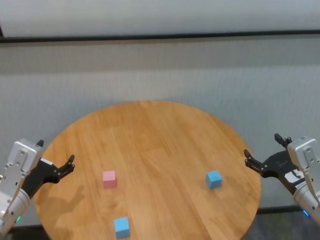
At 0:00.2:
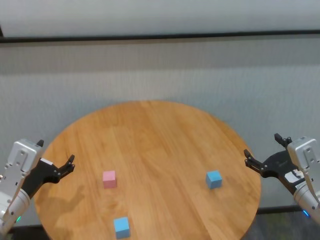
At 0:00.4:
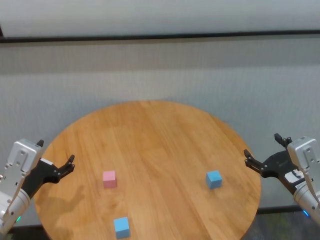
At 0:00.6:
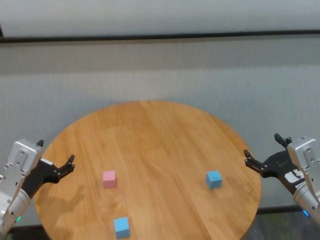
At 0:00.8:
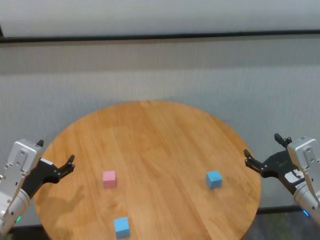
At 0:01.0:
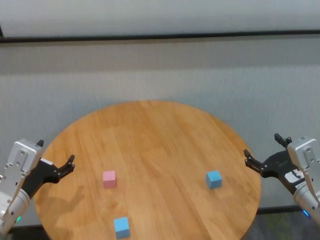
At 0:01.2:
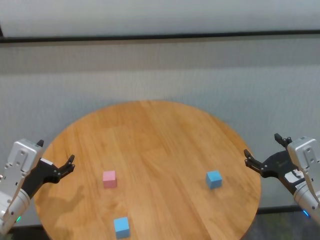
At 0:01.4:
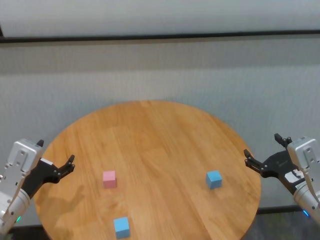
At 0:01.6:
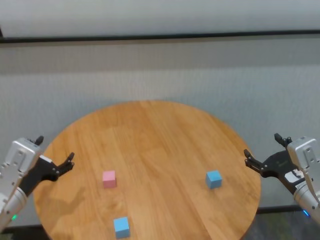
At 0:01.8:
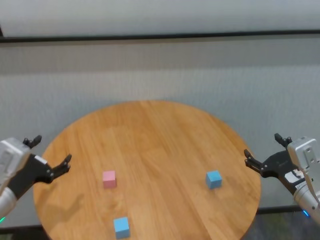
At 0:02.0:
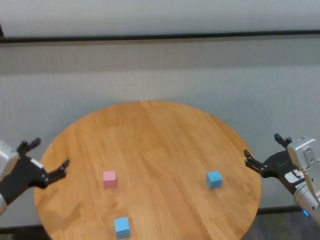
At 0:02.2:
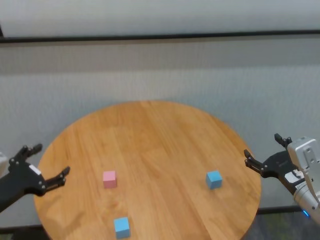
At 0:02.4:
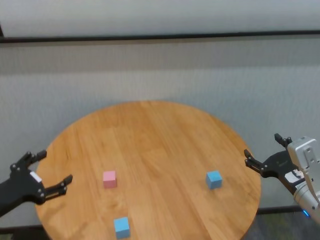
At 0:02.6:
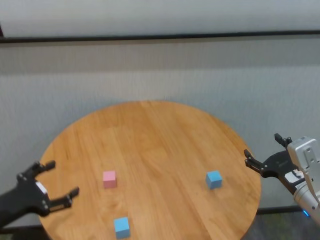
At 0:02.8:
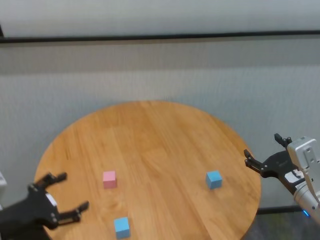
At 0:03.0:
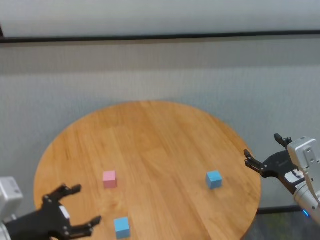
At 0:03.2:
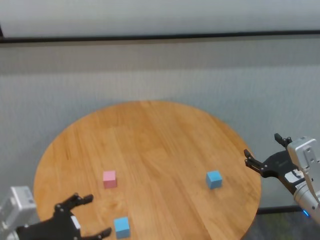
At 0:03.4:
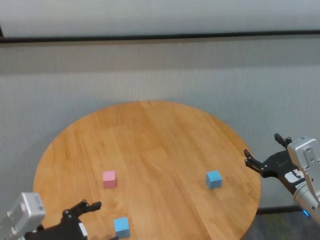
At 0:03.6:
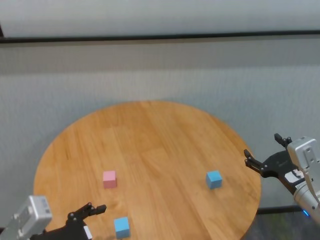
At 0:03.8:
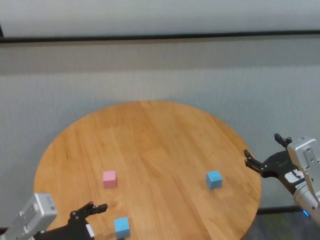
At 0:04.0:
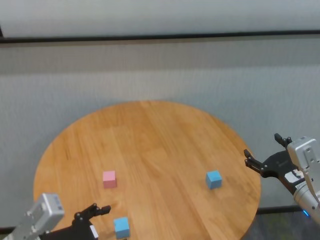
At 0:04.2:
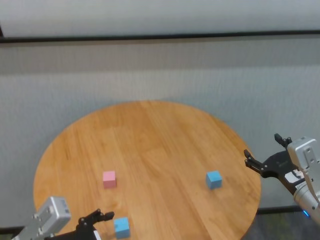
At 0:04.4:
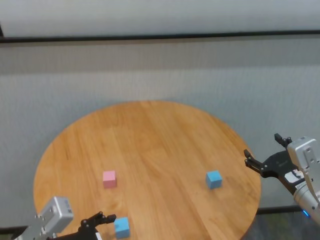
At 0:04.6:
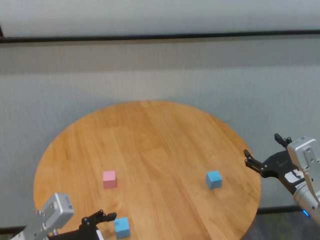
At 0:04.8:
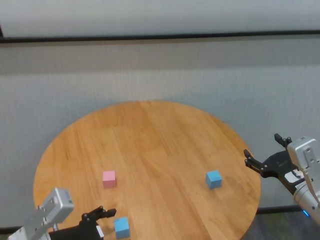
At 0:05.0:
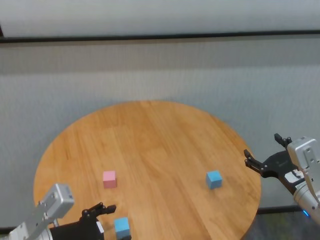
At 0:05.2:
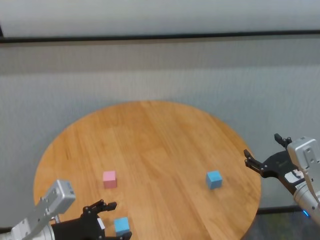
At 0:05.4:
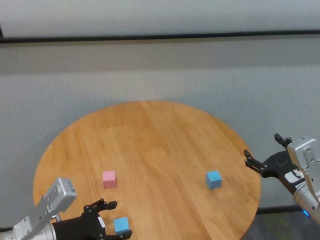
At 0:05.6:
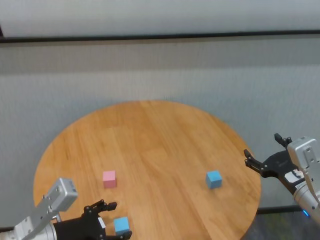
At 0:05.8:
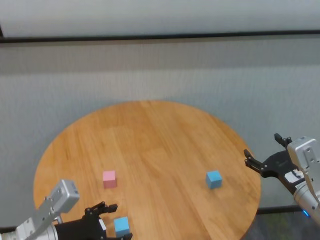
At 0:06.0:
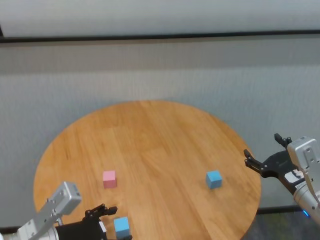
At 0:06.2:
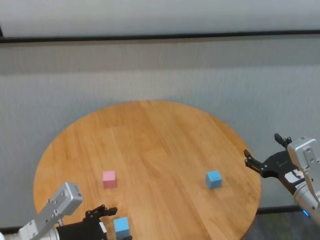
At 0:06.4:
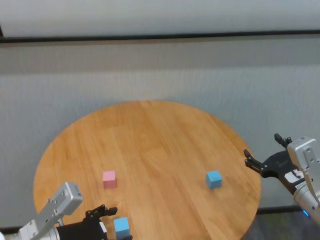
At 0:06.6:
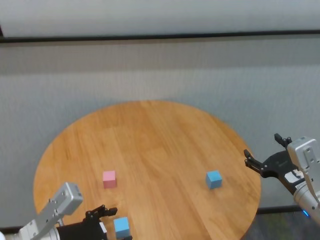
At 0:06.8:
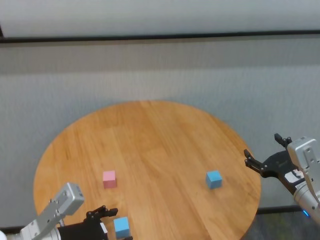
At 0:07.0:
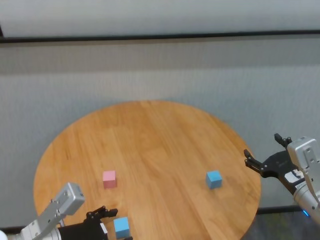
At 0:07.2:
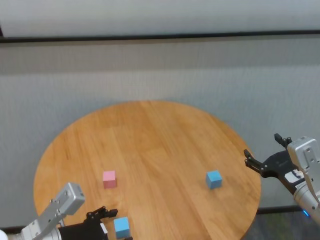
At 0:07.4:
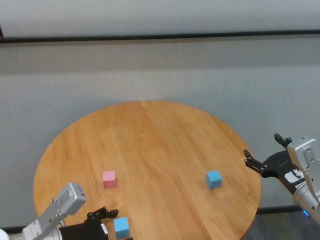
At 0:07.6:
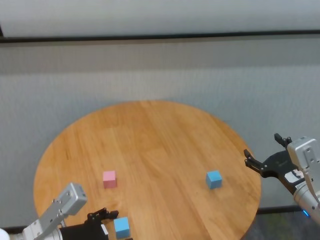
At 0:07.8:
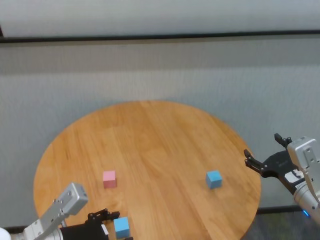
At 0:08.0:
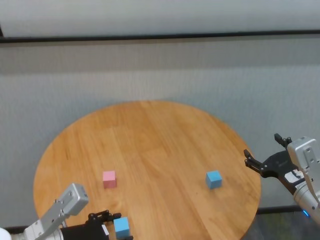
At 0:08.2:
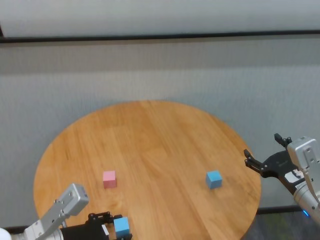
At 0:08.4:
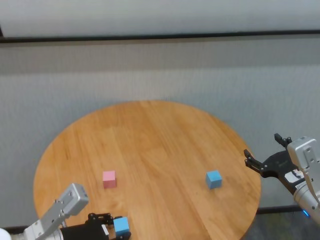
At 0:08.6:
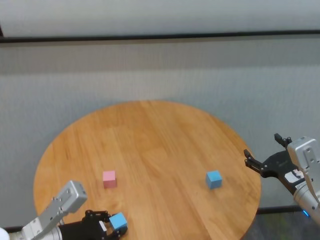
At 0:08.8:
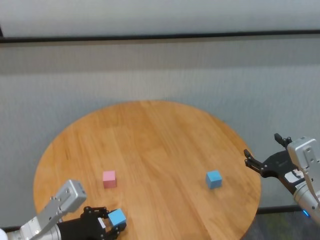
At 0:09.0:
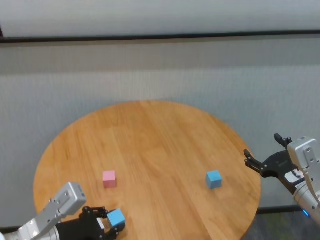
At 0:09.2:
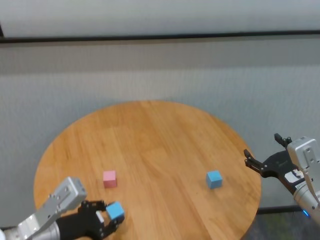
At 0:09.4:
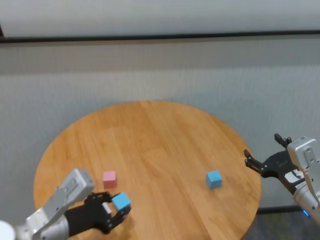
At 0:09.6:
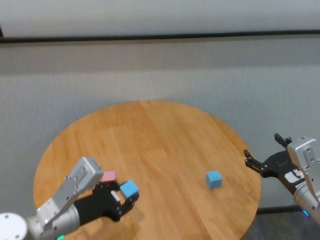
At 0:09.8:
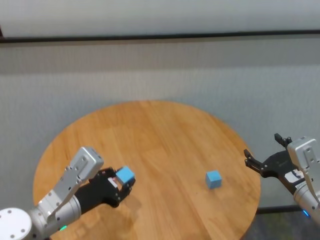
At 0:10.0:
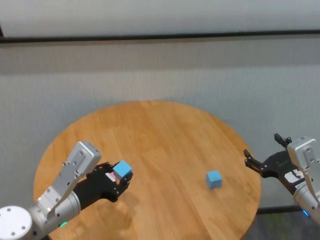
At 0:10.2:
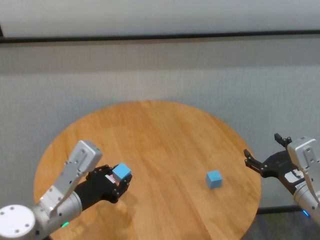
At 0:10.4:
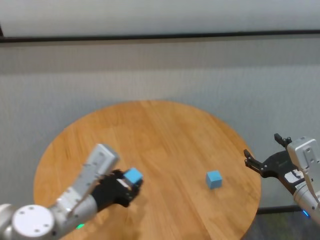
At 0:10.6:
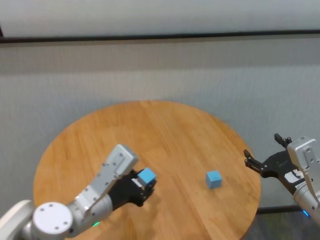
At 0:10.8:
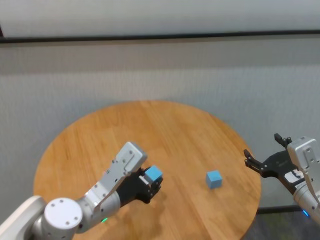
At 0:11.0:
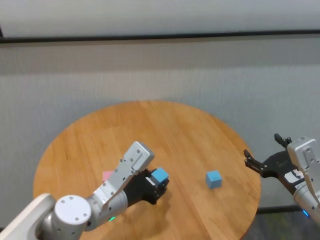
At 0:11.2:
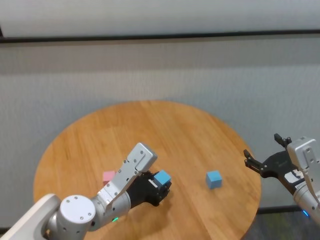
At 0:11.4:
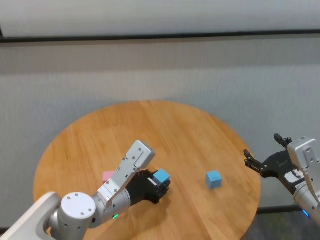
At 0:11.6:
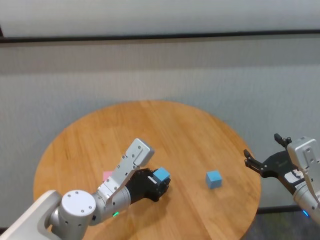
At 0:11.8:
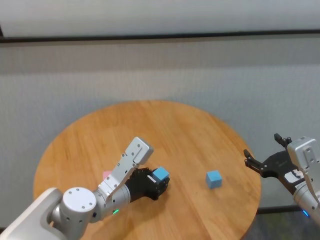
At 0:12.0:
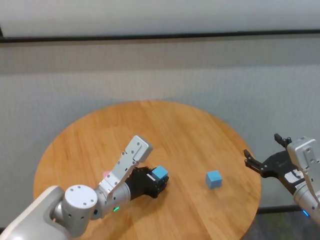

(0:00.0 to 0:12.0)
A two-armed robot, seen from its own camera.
Task of the whole recording: stack building blocks on the table.
Step, 0:00.0 - 0:08.4: Grasp the blue building block with left gripper.

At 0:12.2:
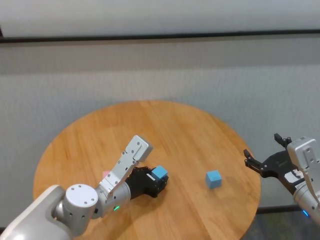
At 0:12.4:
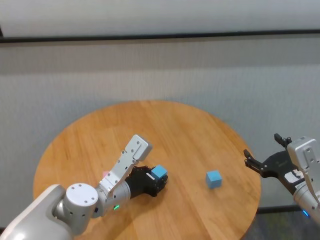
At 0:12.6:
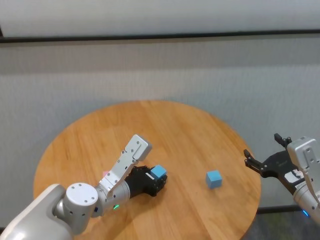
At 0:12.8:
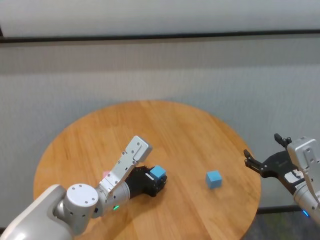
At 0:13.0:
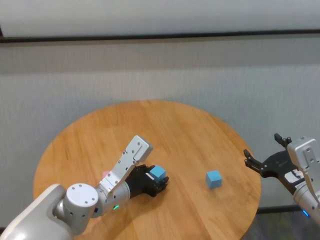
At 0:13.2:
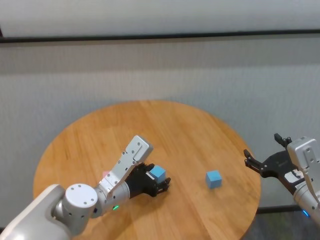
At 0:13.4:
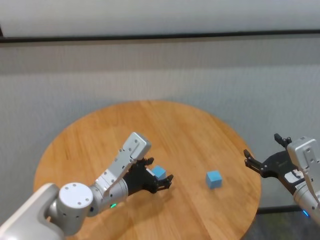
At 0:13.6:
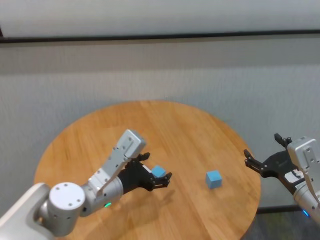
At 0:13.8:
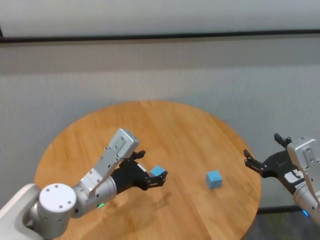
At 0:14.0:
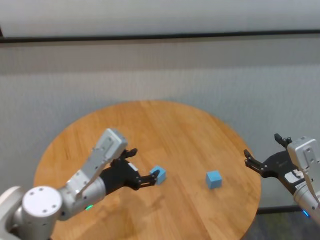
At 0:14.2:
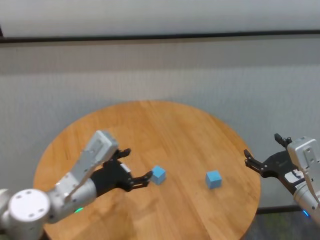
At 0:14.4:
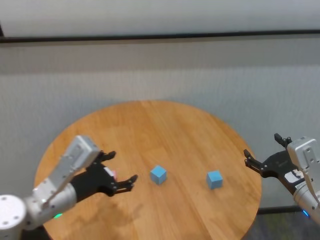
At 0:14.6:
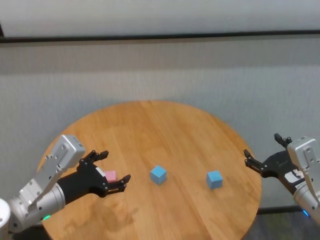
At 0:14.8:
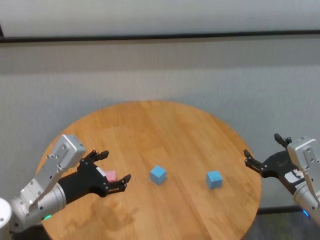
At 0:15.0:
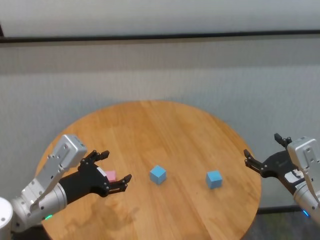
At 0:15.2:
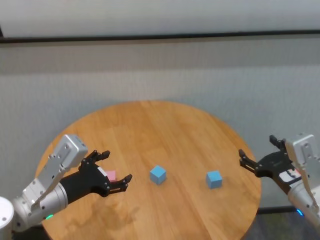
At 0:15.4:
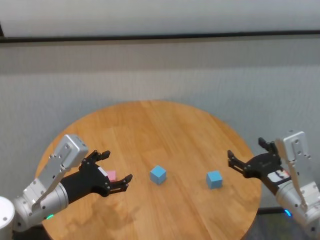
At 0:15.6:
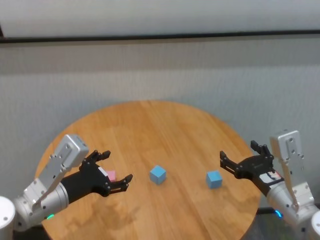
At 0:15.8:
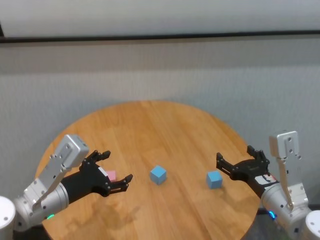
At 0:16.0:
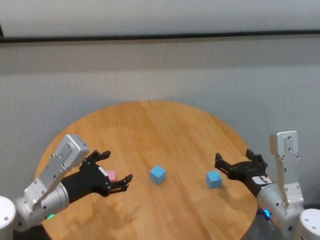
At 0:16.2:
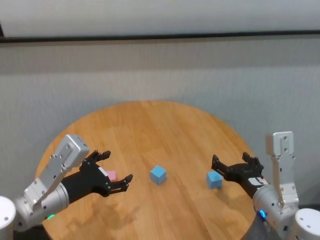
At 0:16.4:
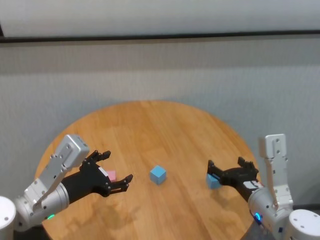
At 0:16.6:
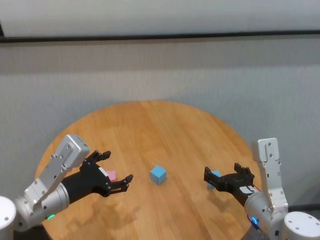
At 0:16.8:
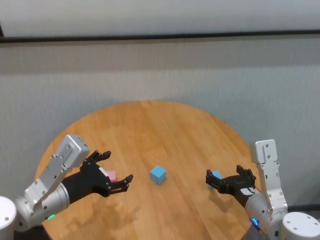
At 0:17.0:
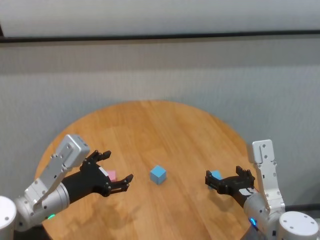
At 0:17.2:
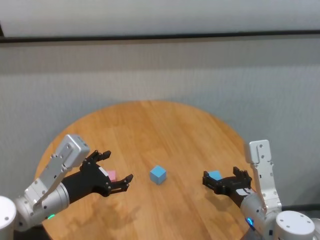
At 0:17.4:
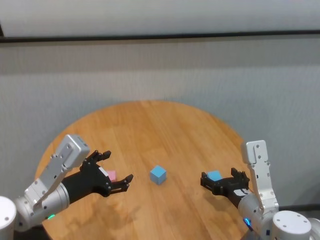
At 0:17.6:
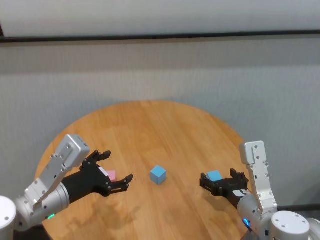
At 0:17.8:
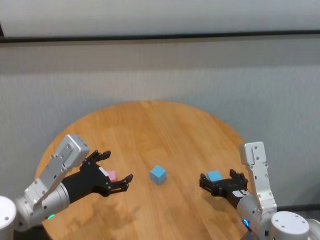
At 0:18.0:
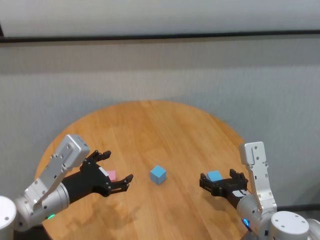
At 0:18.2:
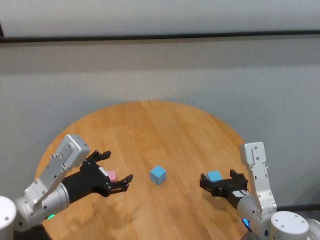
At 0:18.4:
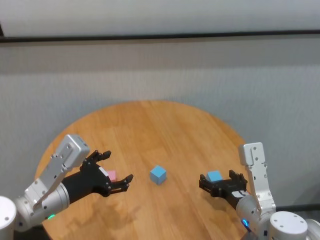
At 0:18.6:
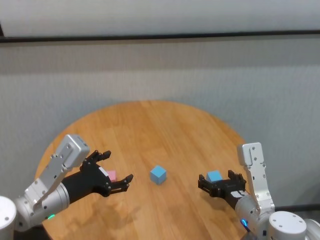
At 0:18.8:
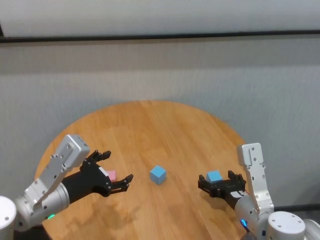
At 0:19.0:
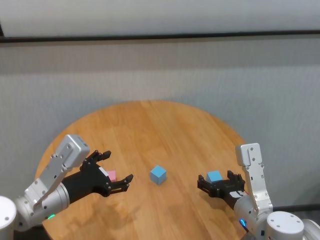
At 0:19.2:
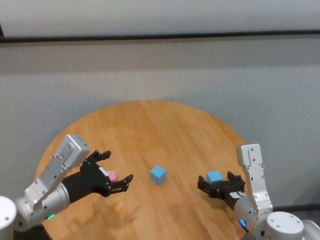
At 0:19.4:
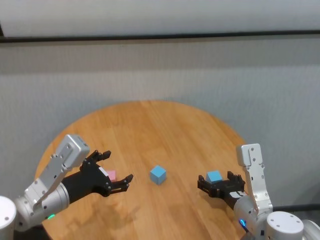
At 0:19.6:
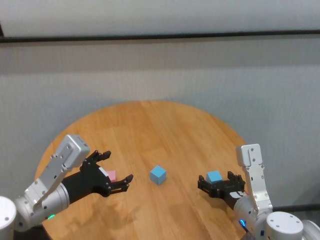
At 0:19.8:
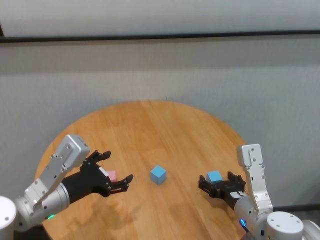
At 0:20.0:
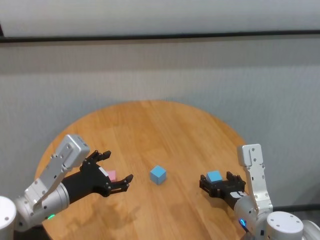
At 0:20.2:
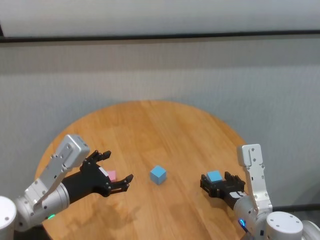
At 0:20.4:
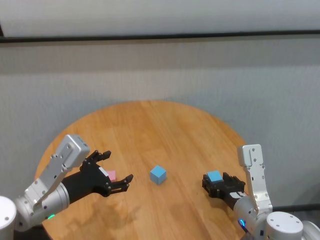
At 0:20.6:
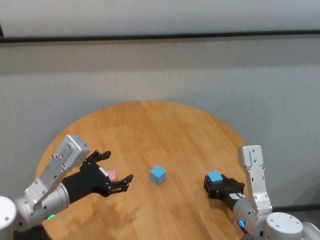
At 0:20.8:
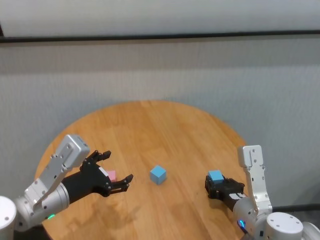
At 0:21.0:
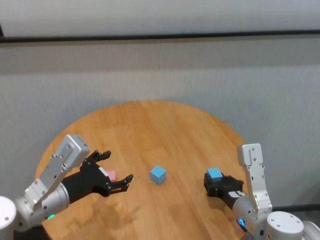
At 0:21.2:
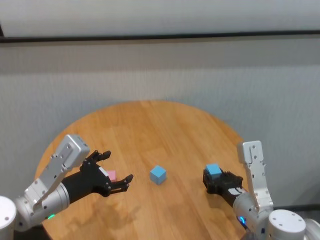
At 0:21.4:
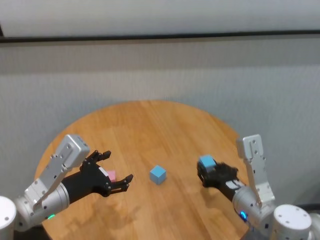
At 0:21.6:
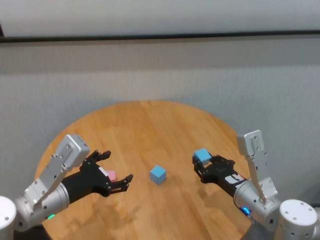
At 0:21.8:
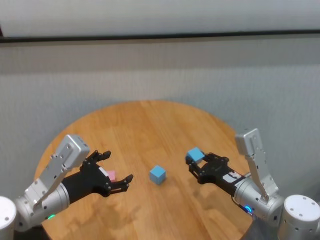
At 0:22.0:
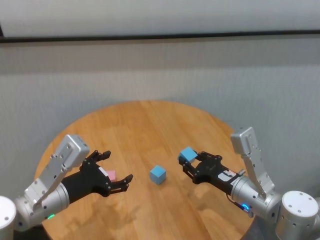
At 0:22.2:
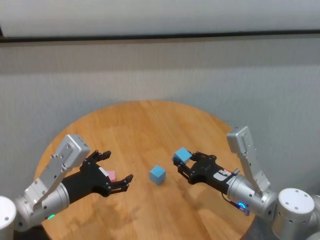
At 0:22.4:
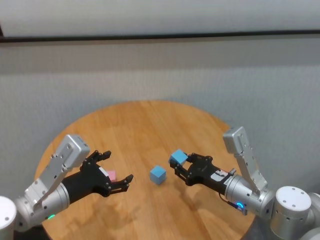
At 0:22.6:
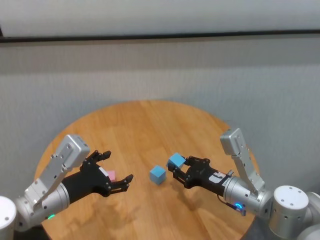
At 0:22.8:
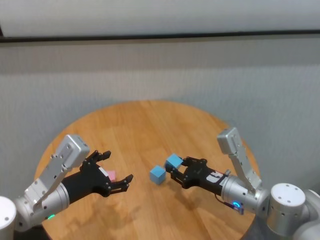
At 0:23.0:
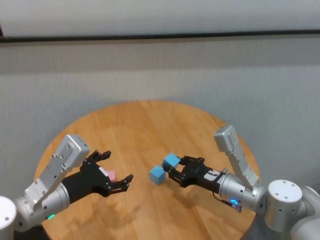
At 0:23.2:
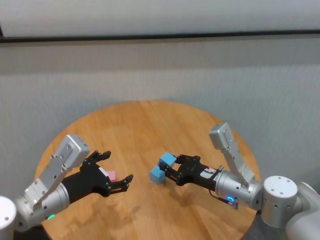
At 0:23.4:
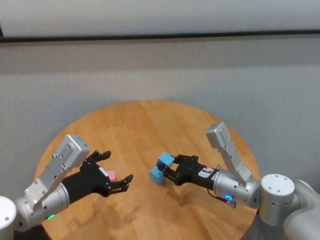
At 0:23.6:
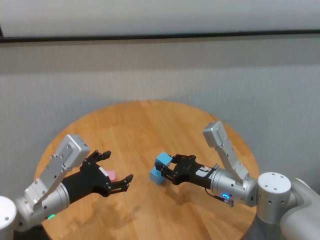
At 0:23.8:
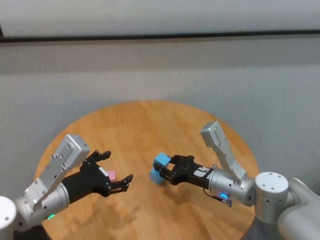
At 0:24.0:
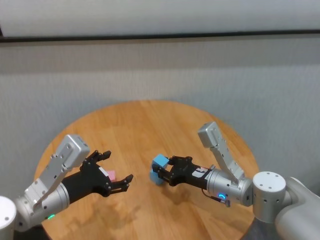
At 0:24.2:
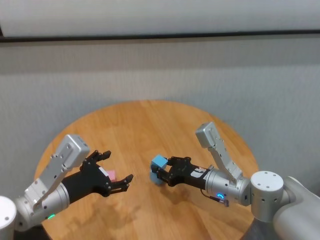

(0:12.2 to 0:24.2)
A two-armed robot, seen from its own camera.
Task of the whole recording: stack building blocks on the table.
Step, 0:13.4 - 0:20.6: Grasp the blue building block with right gripper.
